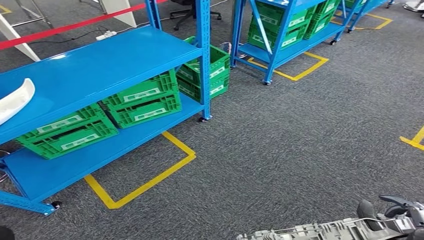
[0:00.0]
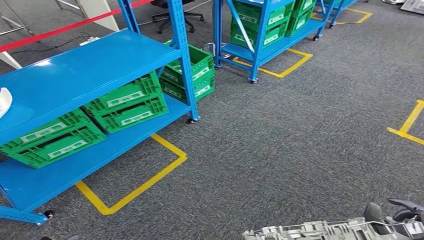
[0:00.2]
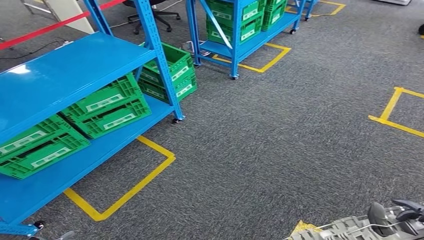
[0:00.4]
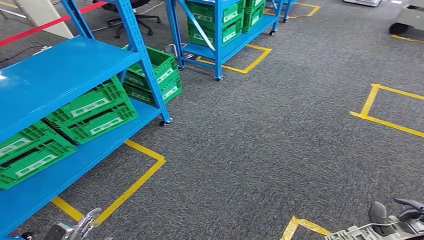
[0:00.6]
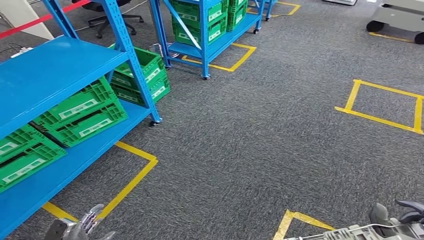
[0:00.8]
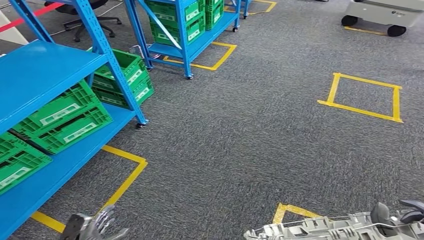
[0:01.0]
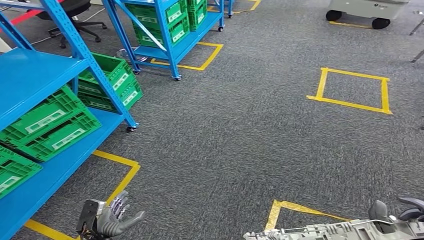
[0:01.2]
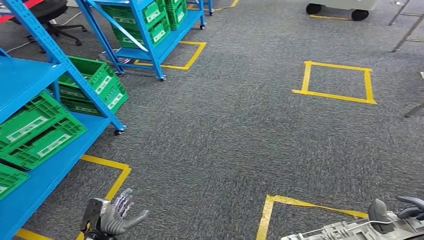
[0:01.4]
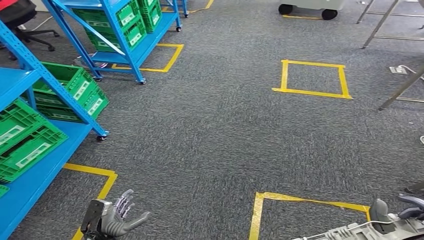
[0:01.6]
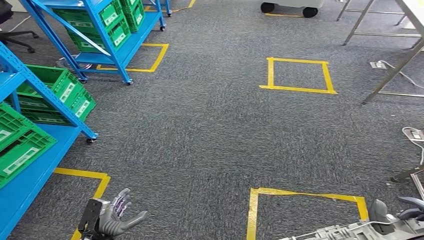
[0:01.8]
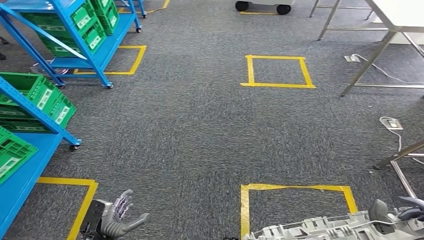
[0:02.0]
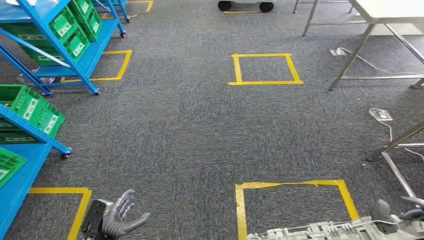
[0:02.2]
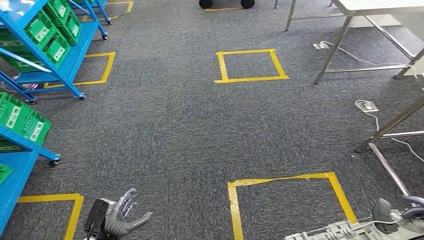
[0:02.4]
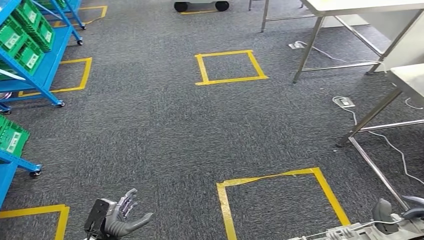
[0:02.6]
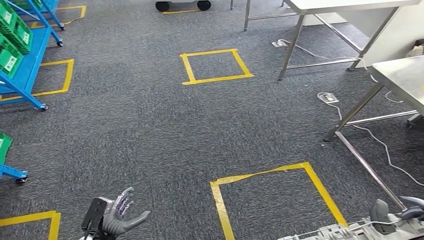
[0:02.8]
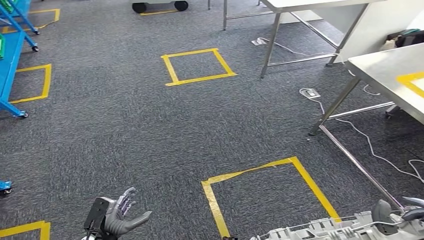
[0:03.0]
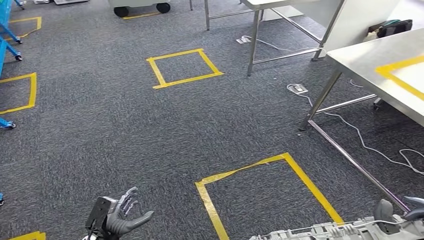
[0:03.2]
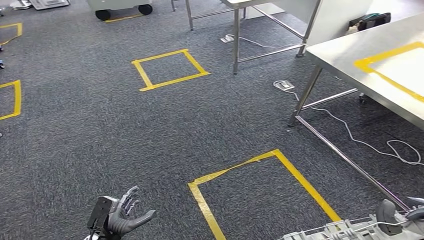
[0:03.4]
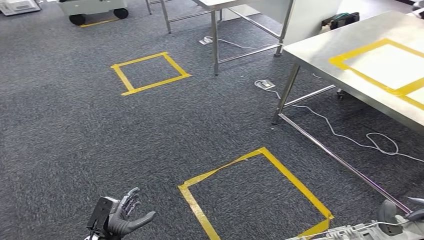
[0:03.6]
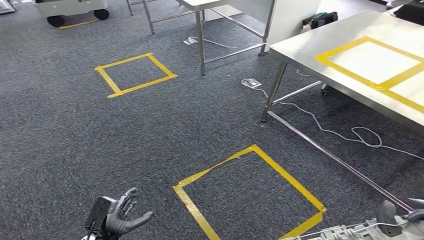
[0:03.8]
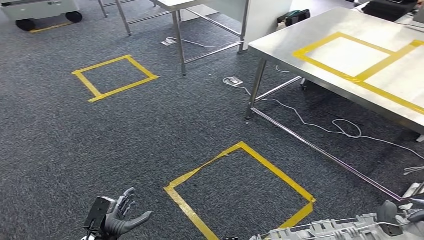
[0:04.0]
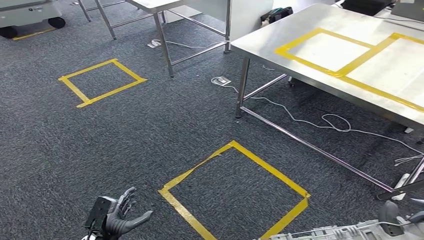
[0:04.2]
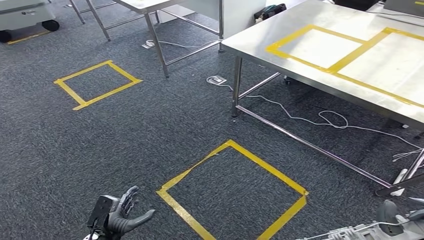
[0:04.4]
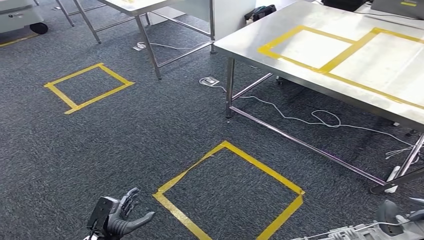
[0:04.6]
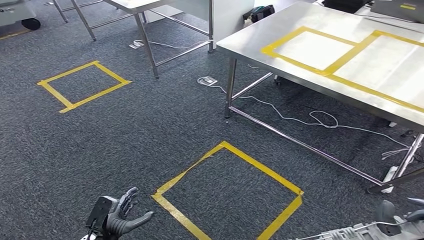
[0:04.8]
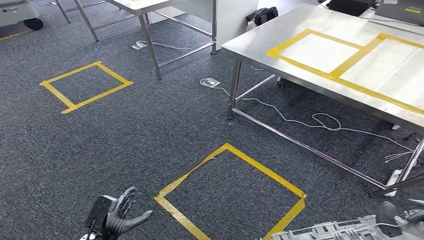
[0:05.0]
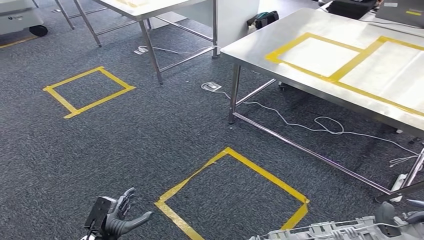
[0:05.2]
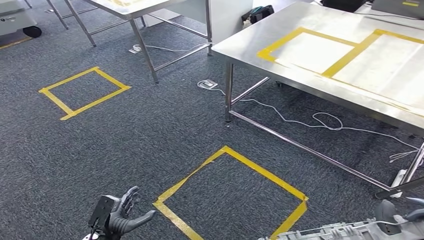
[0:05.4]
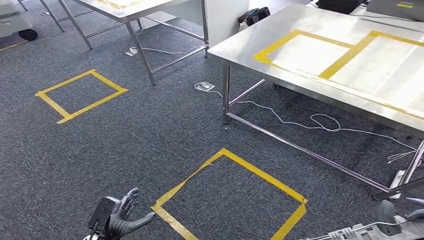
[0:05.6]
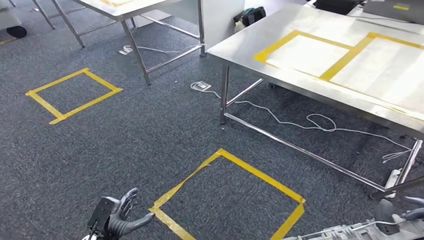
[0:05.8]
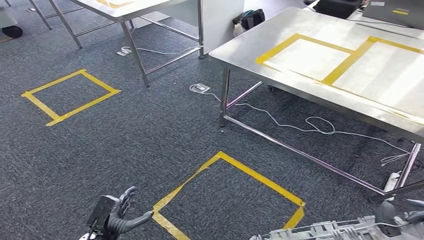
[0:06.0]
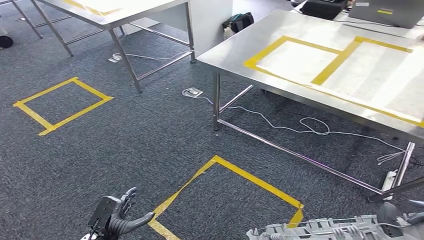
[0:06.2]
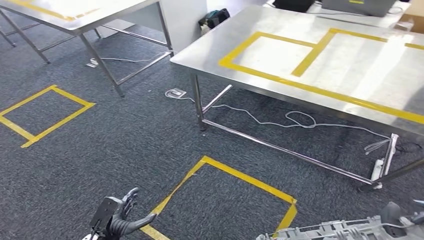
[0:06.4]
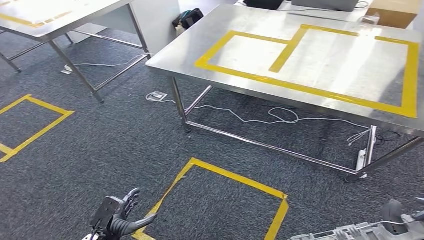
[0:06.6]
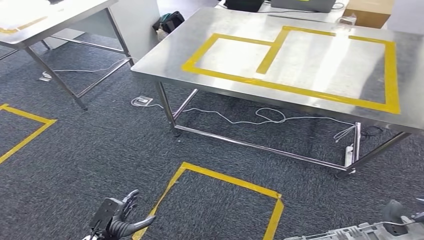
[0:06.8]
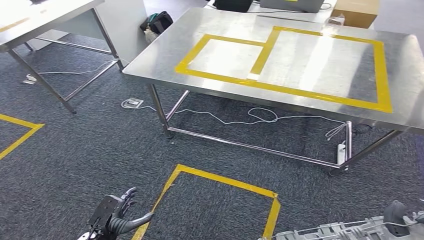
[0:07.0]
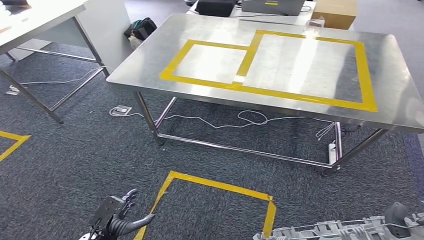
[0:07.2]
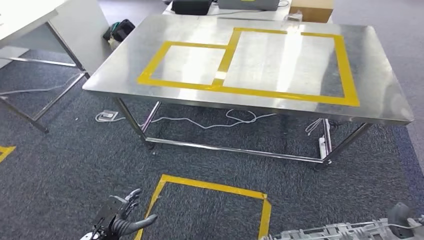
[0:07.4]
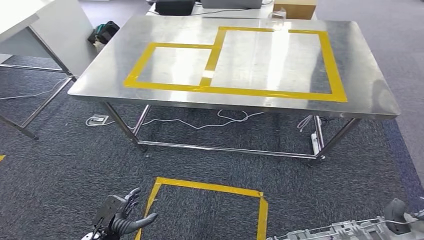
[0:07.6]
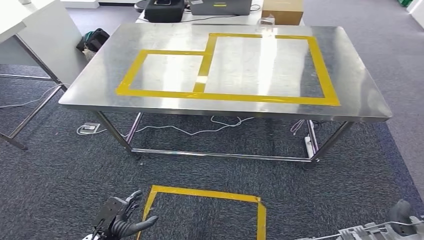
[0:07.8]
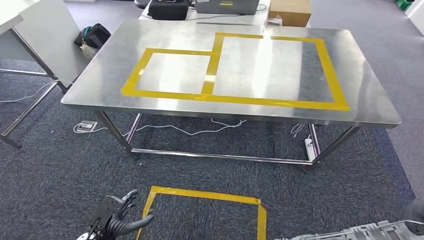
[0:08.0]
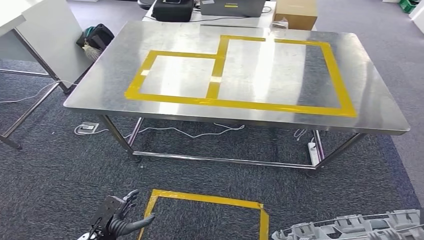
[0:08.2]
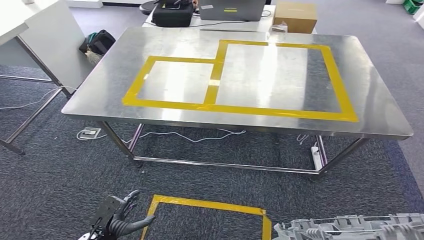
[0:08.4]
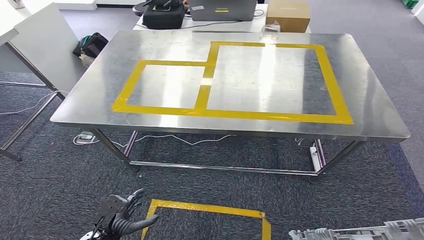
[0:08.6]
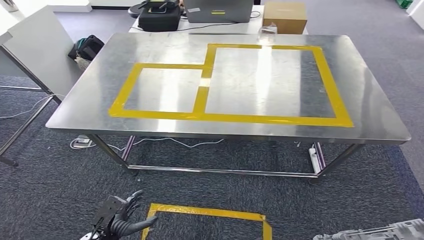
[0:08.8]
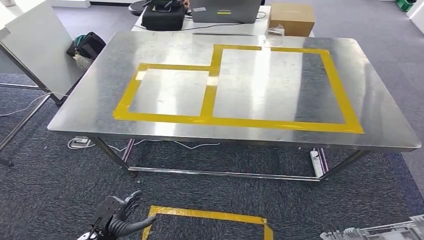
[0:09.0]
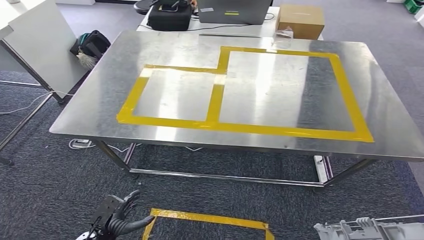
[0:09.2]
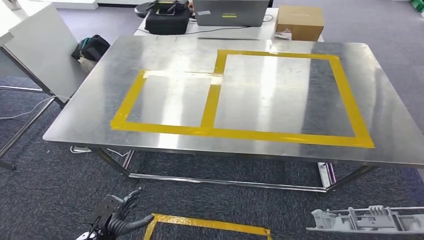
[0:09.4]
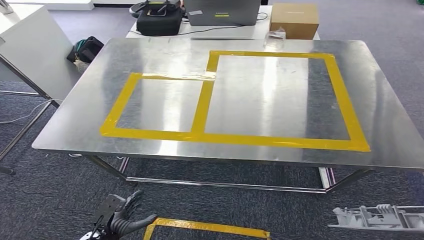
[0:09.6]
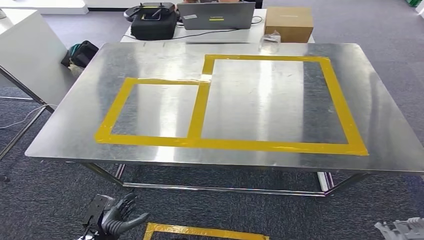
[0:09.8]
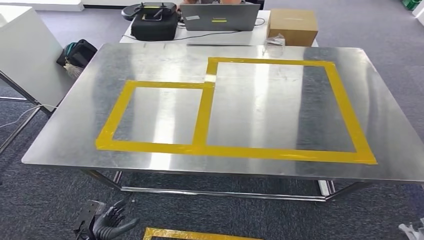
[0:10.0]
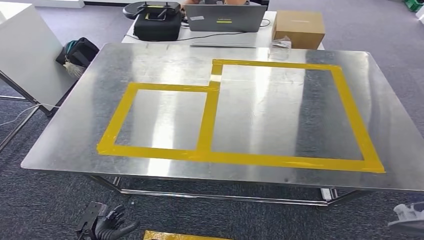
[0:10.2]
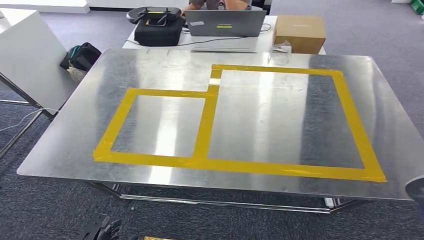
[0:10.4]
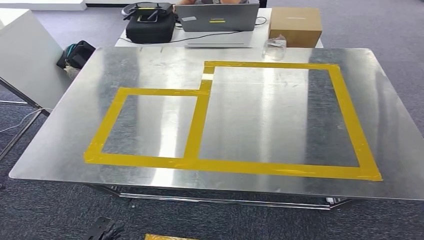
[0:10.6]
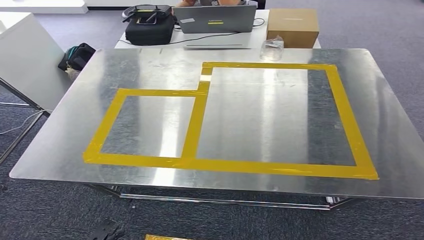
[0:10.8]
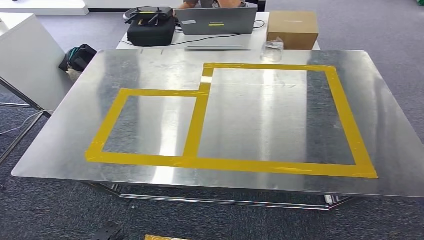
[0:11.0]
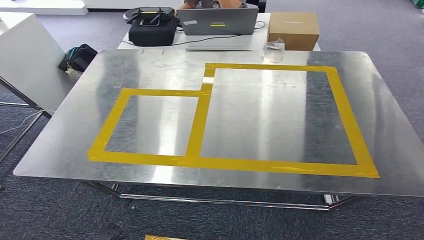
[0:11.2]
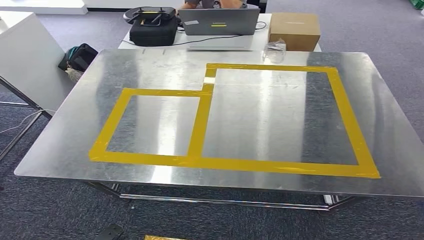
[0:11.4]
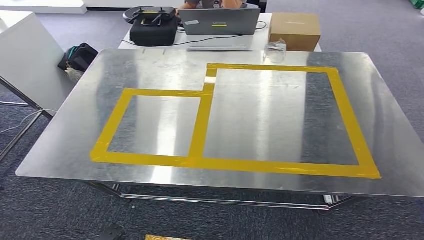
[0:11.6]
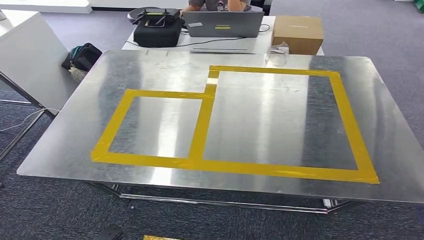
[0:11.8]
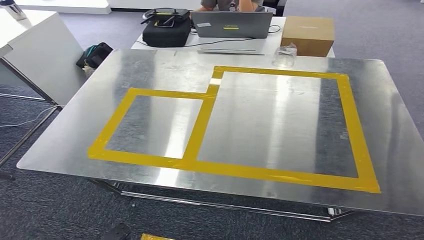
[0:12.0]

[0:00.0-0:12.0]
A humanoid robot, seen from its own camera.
Step, 0:00.0 to 0:09.4: Move the small parts to the workbench.

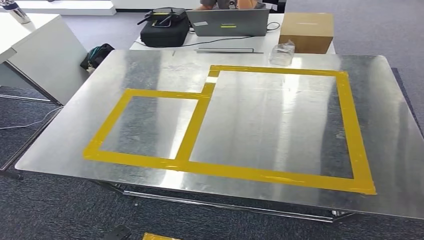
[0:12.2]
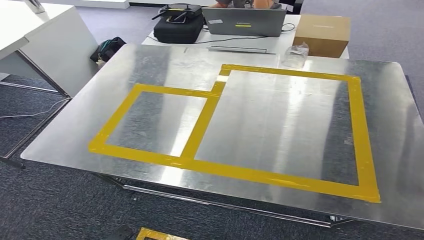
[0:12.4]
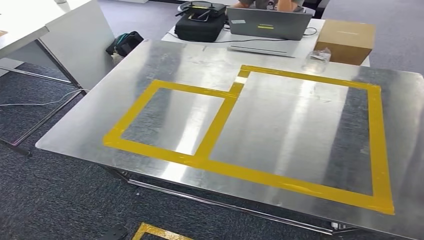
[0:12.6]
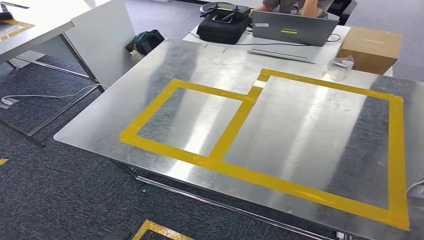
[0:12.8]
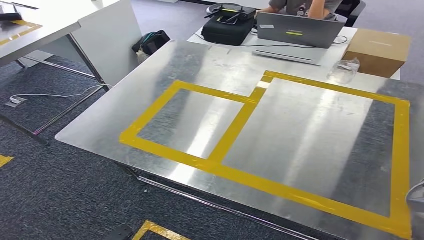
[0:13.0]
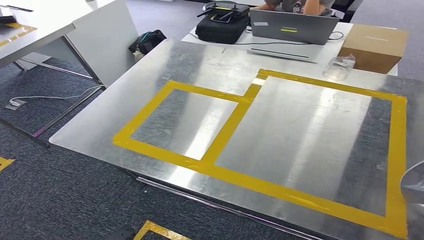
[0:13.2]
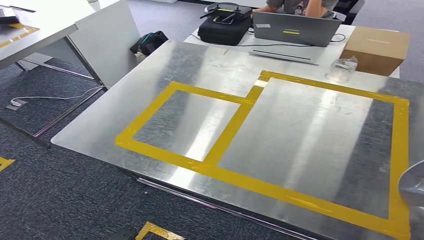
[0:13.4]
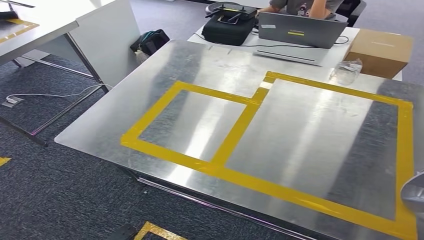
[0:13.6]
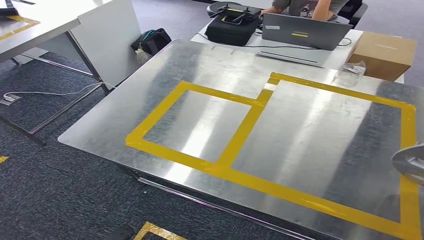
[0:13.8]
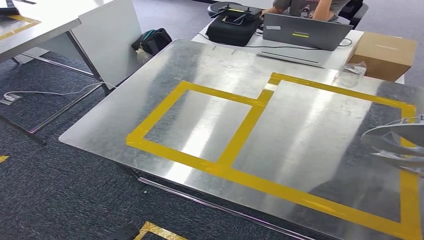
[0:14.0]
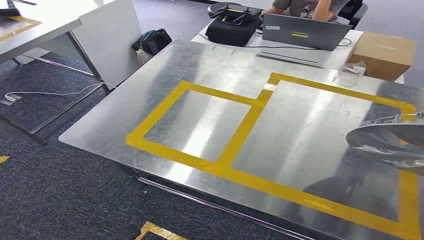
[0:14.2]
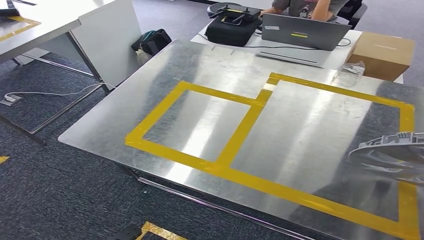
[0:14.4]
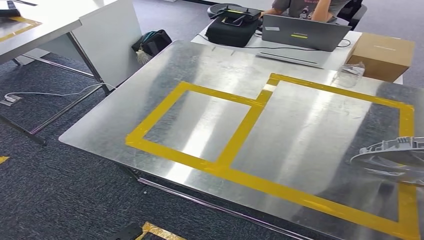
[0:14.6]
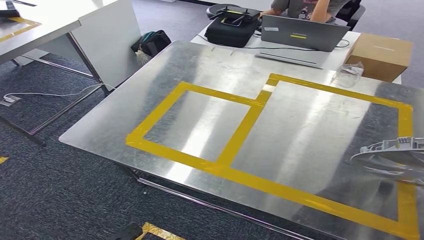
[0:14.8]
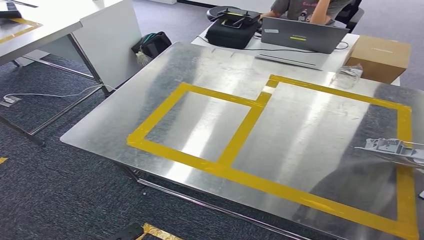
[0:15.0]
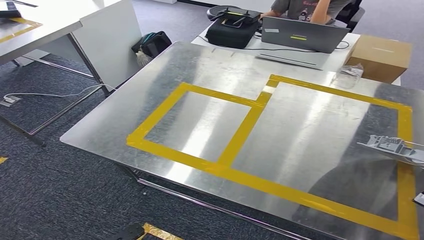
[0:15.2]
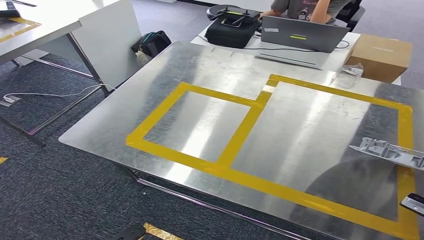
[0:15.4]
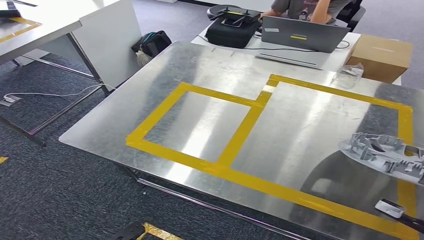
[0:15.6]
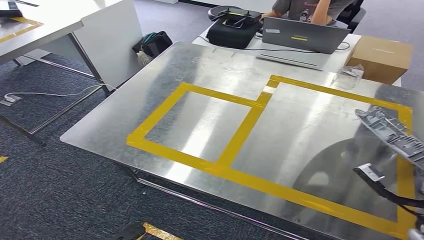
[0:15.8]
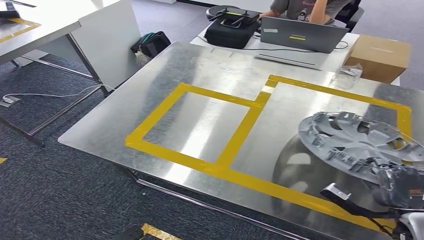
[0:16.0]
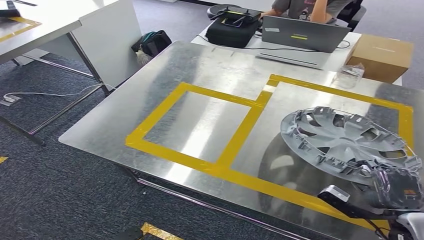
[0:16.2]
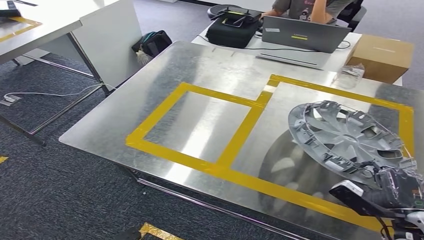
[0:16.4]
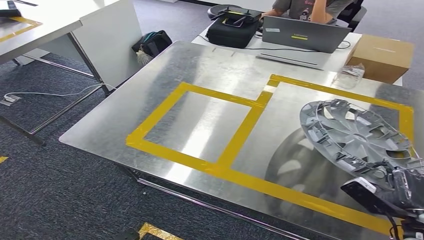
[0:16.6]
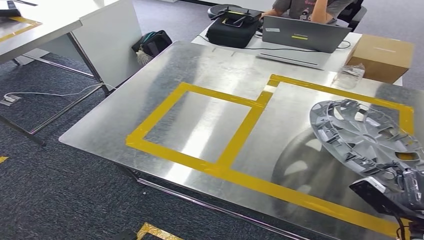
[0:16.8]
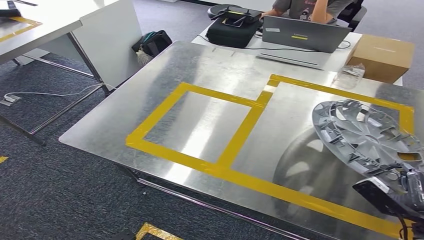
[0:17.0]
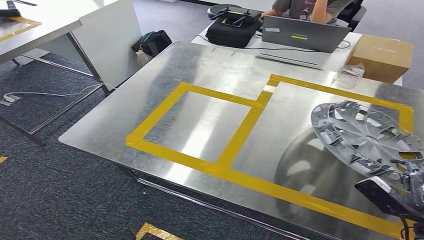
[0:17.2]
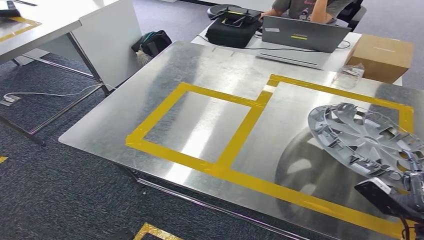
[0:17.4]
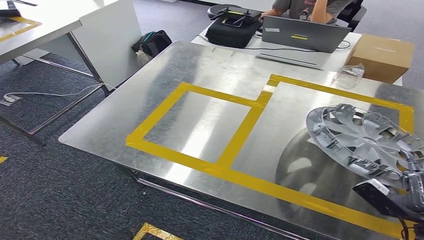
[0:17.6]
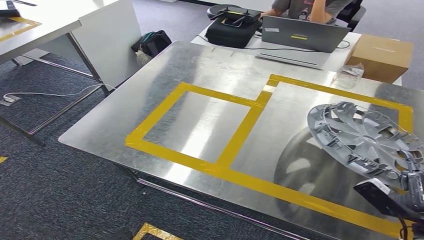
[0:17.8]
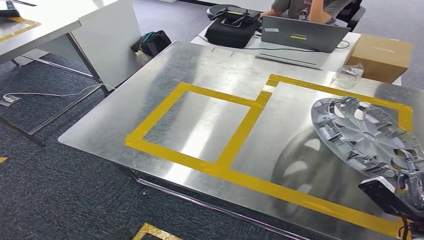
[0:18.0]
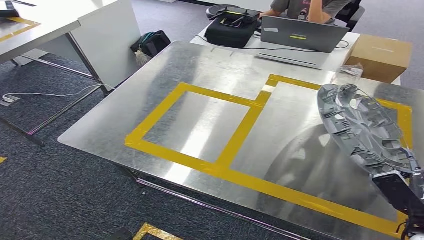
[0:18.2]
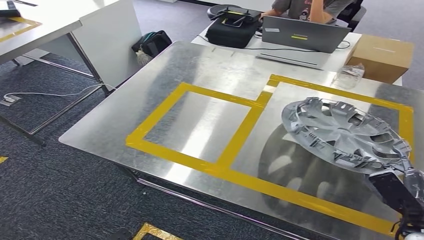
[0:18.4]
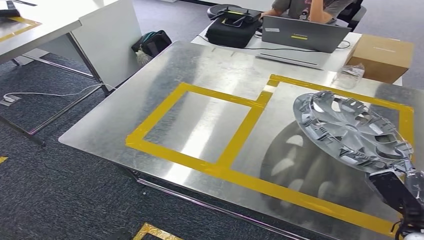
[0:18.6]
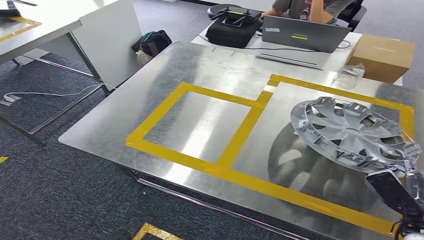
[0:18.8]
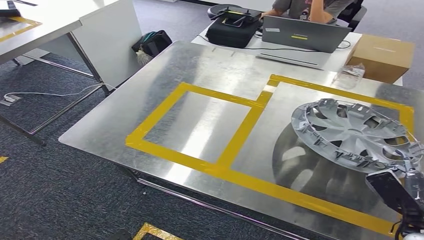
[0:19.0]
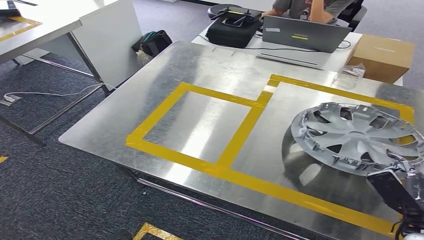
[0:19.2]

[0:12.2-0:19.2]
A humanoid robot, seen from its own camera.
0:13.6 to 0:15.0: The right hand moves some 5 cm.
0:15.0 to 0:16.4: The right hand travels to the left and downward by approximately 20 cm.
0:16.4 to 0:17.8: The hands move only a little.
